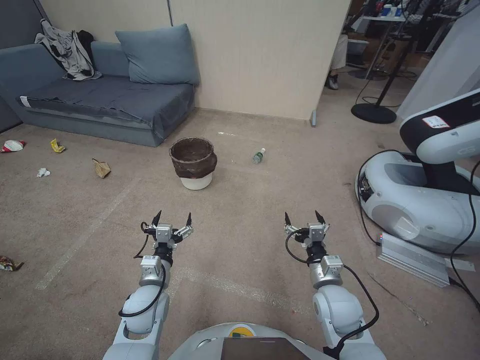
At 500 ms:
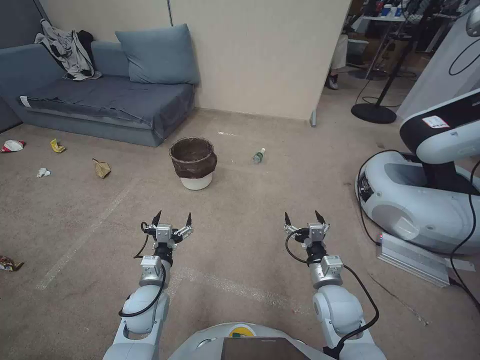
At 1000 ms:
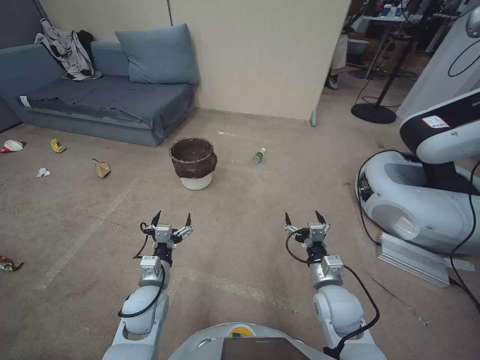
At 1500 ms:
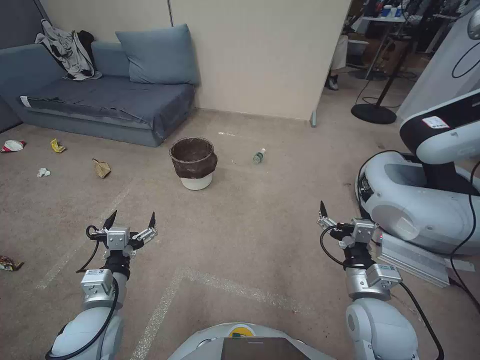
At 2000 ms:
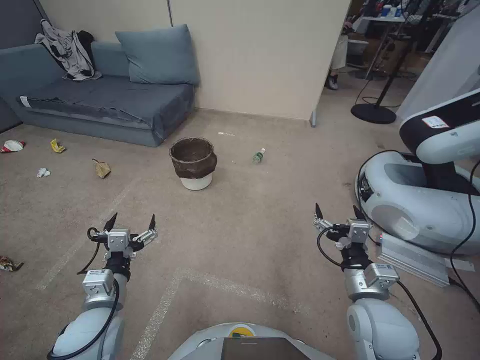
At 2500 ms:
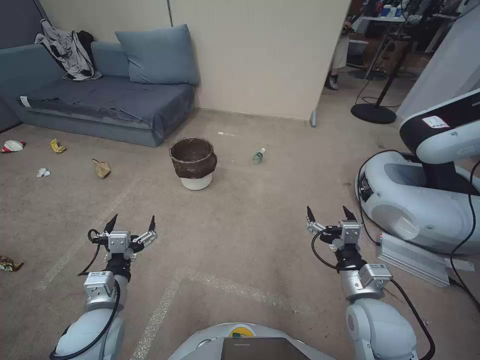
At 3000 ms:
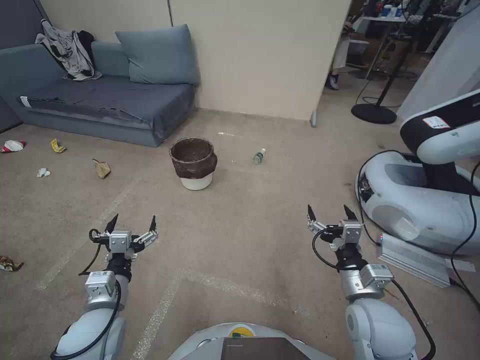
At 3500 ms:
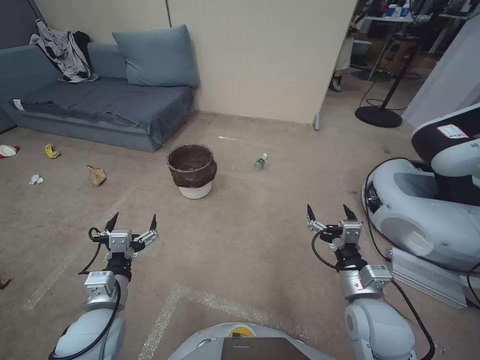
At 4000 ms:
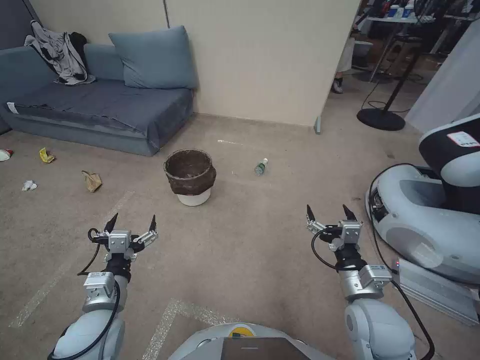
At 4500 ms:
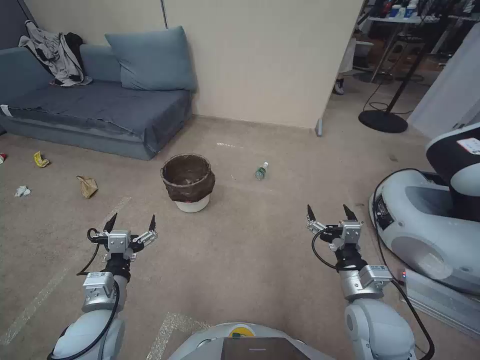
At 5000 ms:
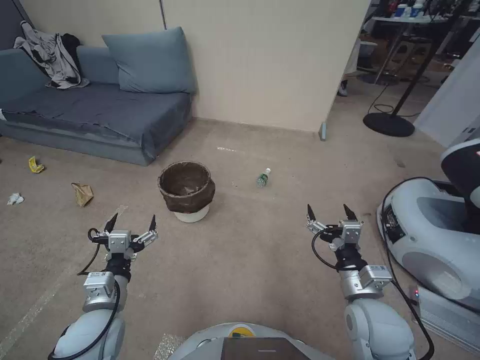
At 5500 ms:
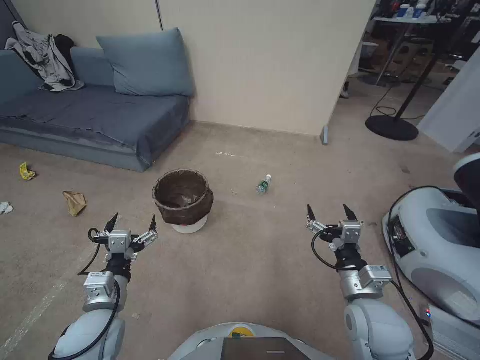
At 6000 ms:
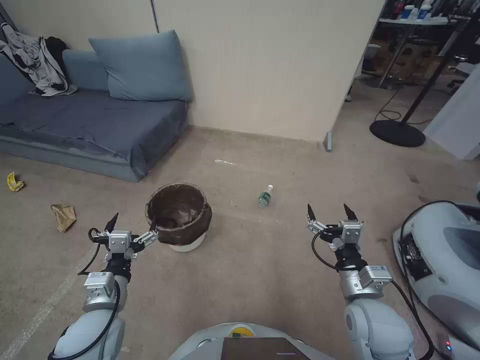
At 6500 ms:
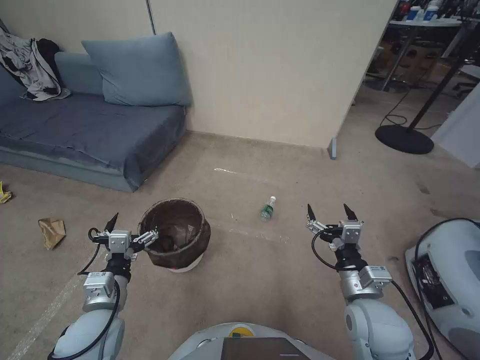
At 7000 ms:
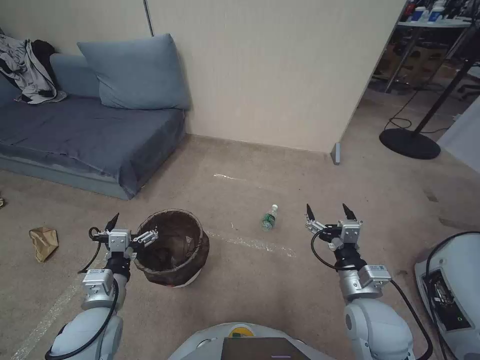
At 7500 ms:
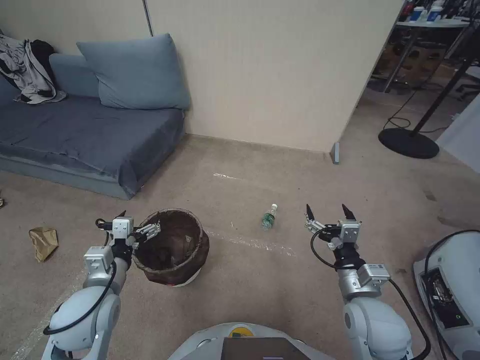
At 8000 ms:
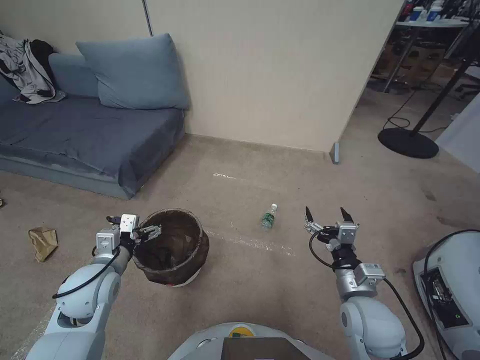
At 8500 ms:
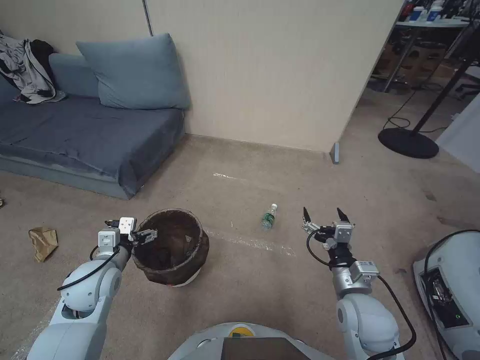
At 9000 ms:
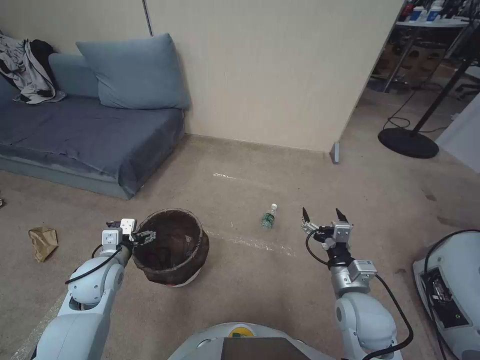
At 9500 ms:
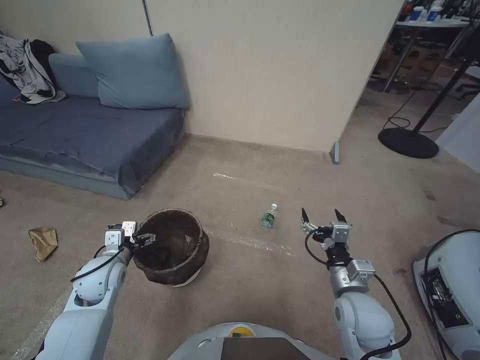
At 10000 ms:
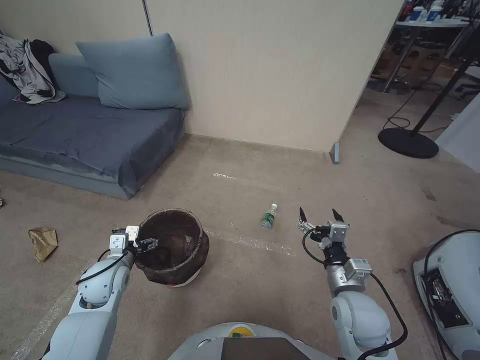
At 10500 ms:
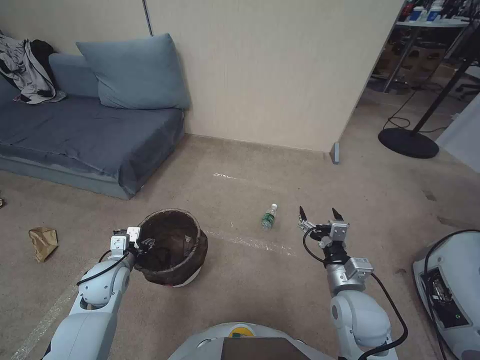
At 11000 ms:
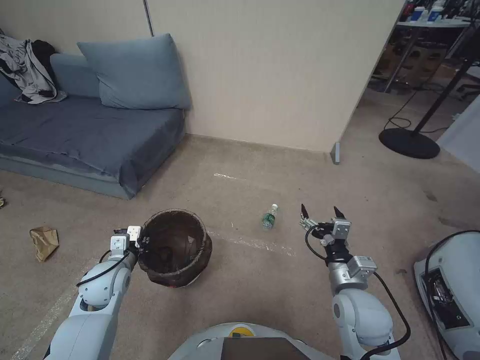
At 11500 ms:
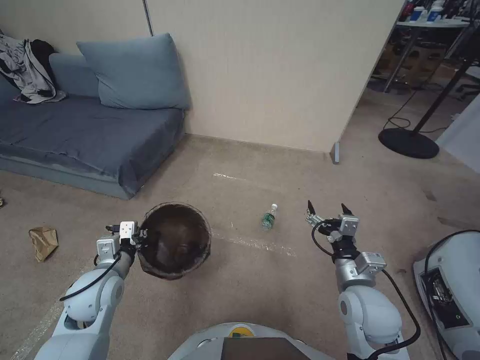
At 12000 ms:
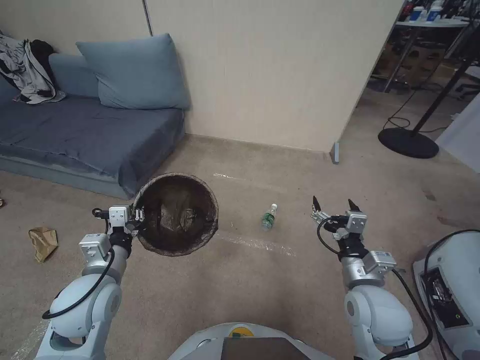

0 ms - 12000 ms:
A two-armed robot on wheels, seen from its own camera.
Task of the whole recording: Pick up the trash bin, then pick up the garbage from the floor and place it into the trash bin.
2000 ms - 4000 ms: The grippers move only a little.
6000 ms - 8000 ms: The left gripper goes roughly 5 cm forward.
8000 ms - 10000 ms: The left gripper goes about 5 cm downward.
10000 ms - 12000 ms: The left gripper heads upward and backward, covering about 10 cm, and closes its fingers.

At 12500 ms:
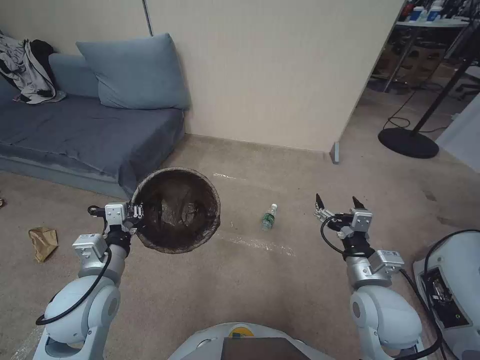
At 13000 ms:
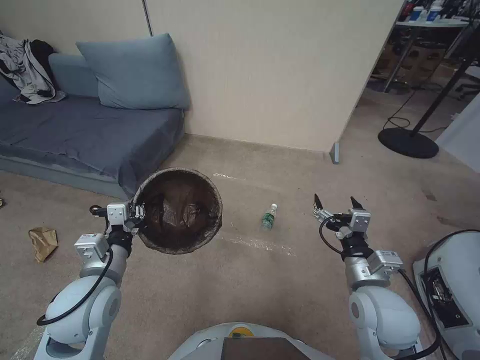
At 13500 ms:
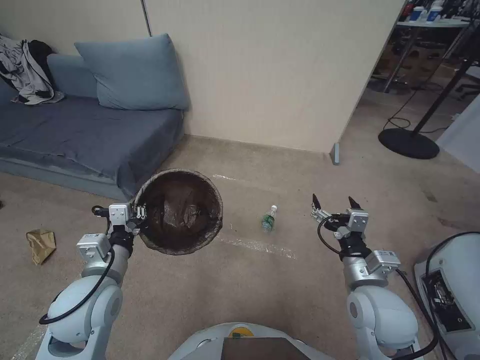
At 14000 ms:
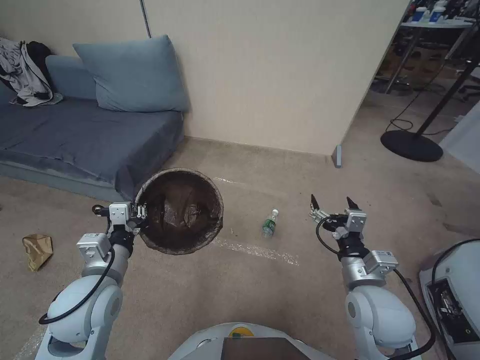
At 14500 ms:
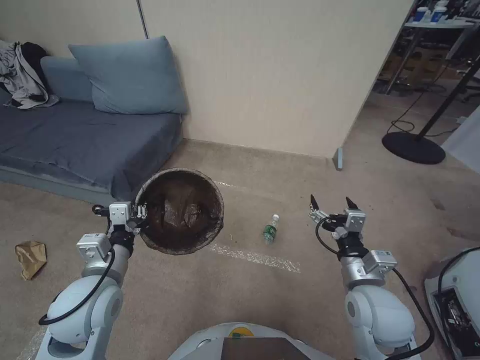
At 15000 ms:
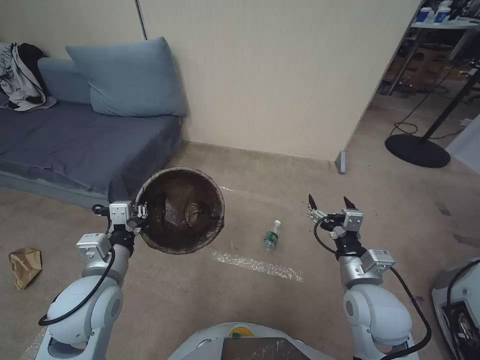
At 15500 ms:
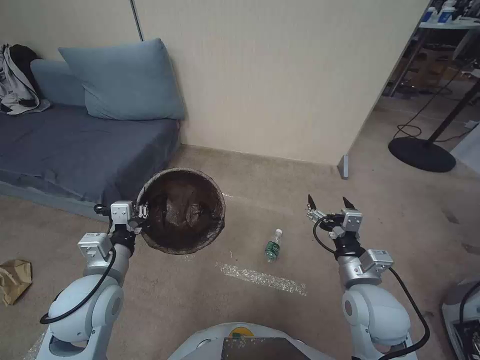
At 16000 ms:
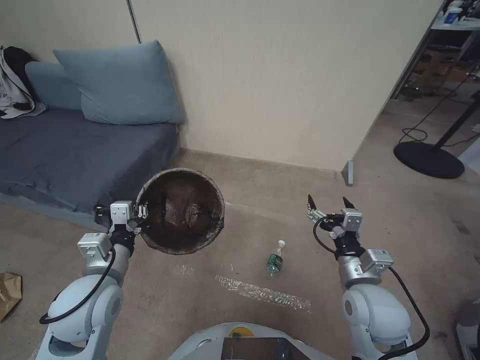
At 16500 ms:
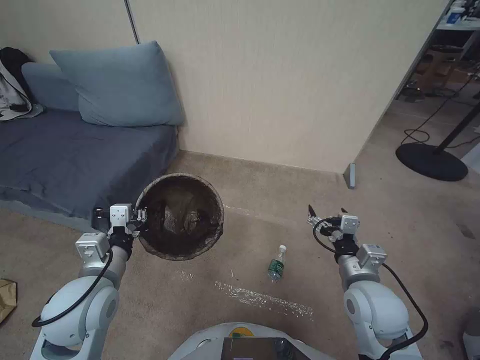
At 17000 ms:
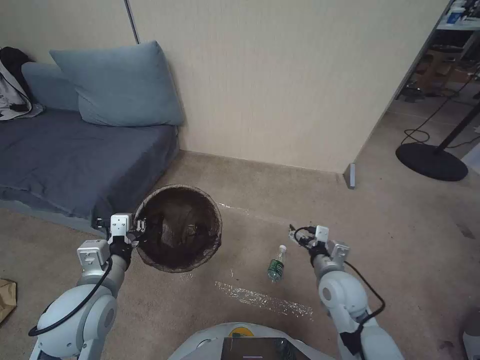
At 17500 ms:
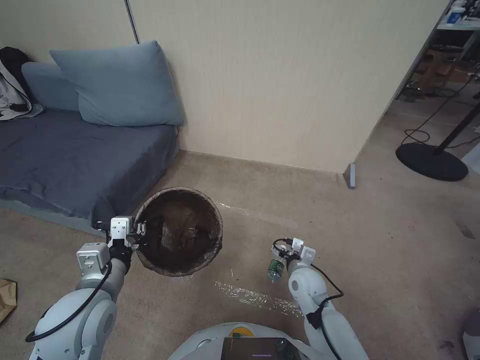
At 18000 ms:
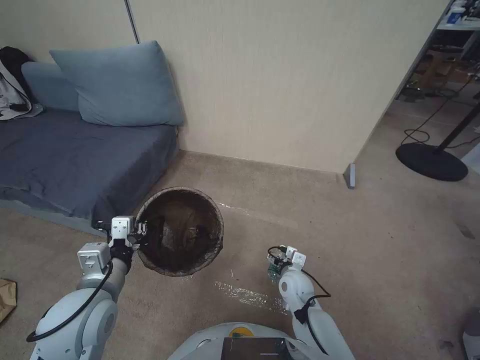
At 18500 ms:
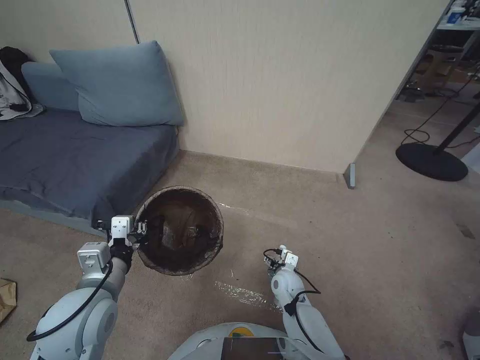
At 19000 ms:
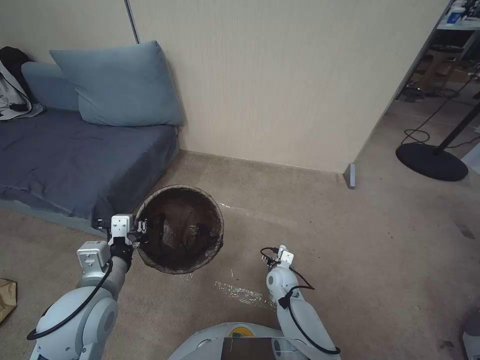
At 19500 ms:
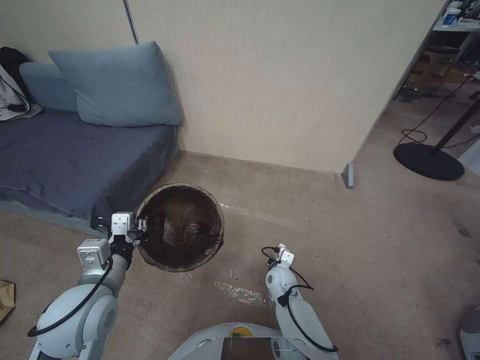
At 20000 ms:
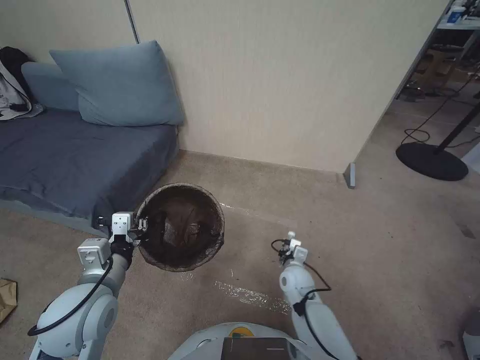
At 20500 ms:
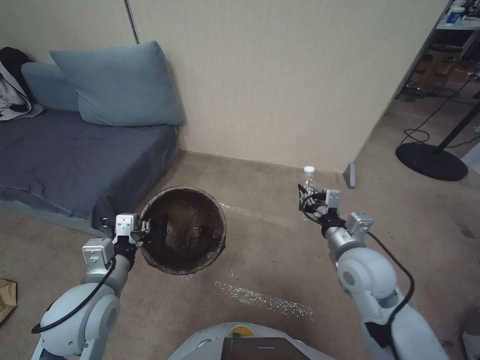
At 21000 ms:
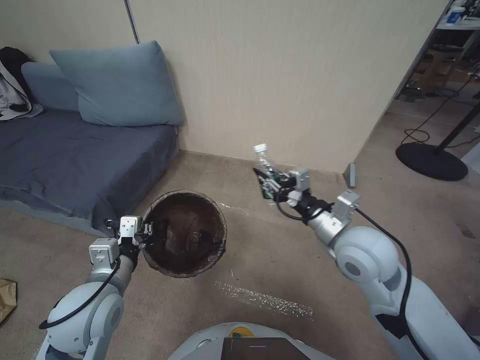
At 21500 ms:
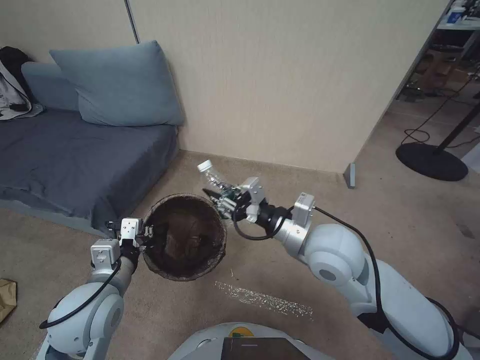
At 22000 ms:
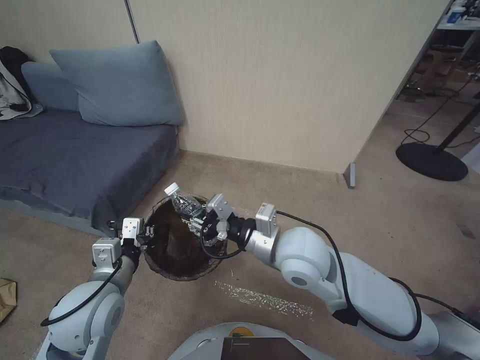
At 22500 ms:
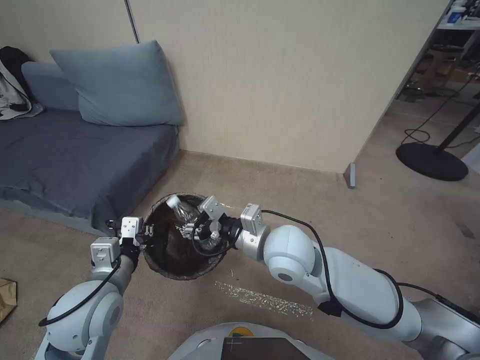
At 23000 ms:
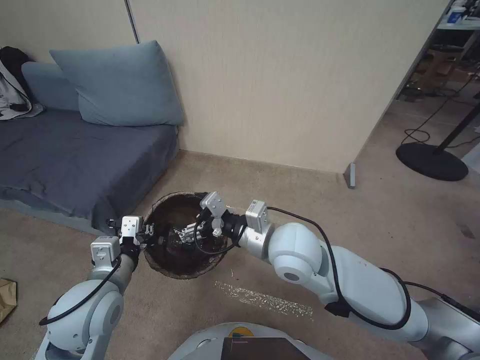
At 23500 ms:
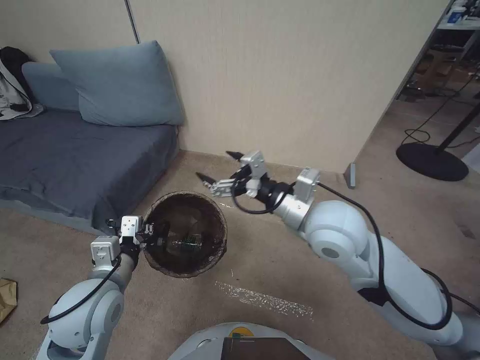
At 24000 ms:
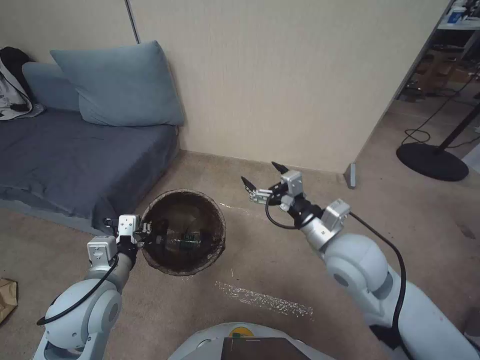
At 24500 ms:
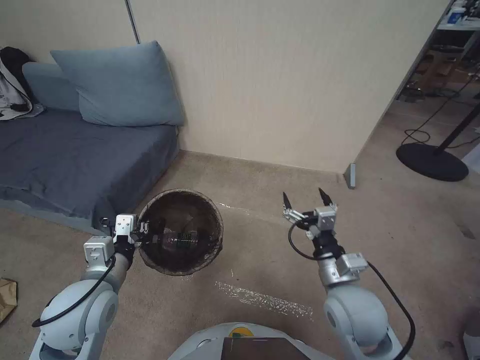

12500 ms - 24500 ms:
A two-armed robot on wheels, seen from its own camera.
Task of the whole recording: Pick up the trash bin, then pick up the garbage from the floor and place it into the trash bin.
12500 ms - 14500 ms: Both grippers stay put.
16500 ms - 18500 ms: The right gripper moves downward, to the left and forward, about 25 cm.
18500 ms - 20500 ms: The right gripper heads upward, covering some 25 cm, and closes up.
20500 ms - 22500 ms: The right gripper travels to the left and upward by roughly 20 cm.
22500 ms - 24500 ms: The right gripper moves to the right, downward and backward, about 15 cm, and opens its fingers.

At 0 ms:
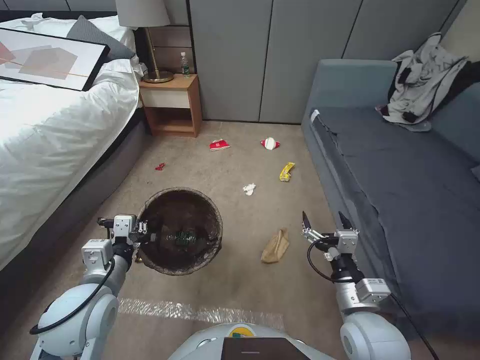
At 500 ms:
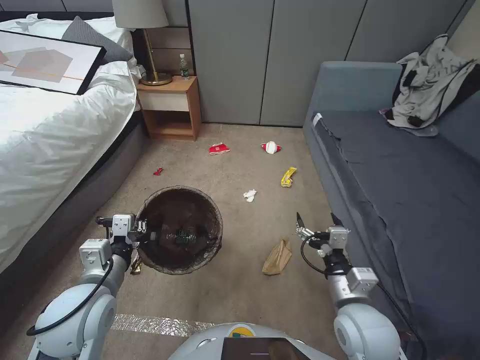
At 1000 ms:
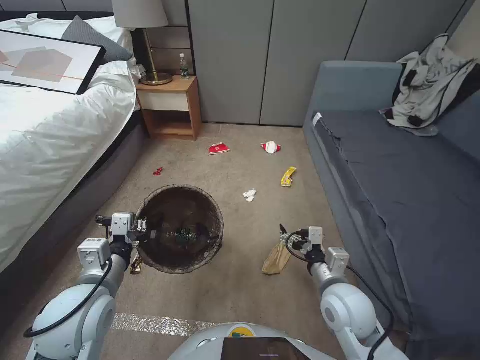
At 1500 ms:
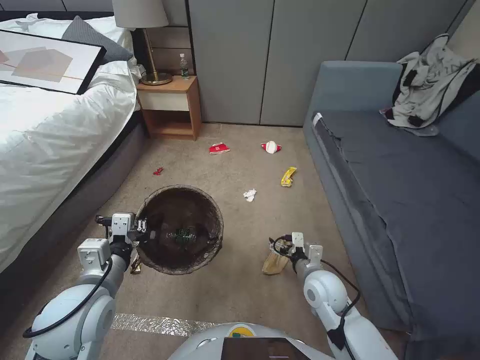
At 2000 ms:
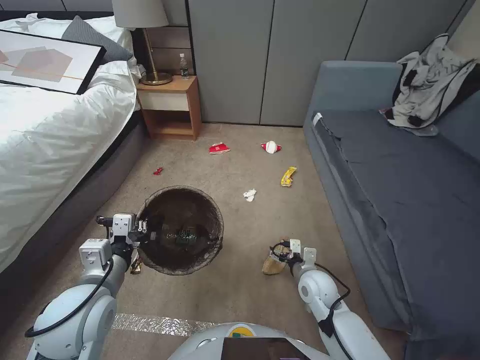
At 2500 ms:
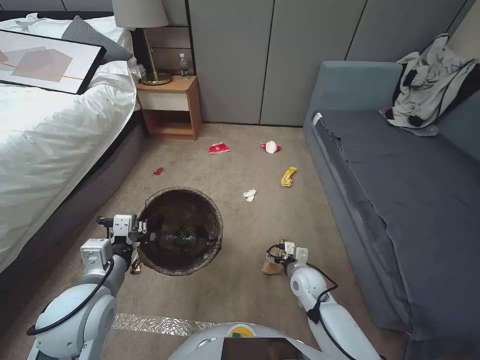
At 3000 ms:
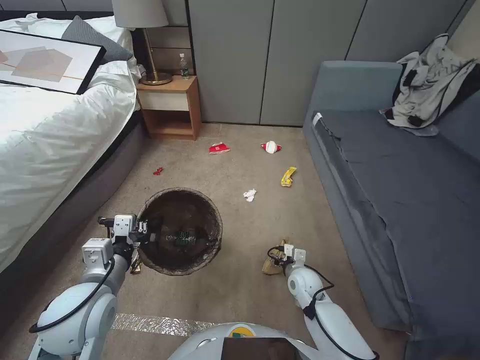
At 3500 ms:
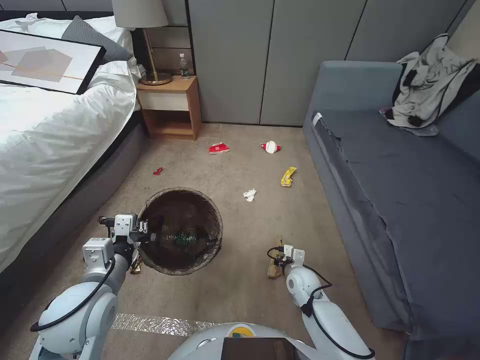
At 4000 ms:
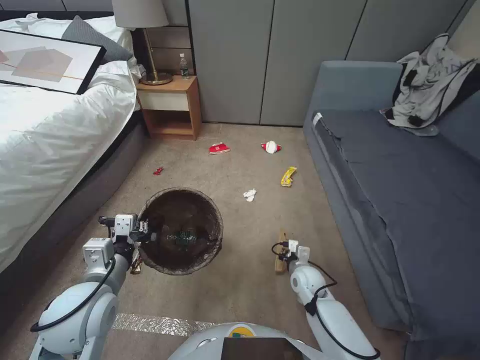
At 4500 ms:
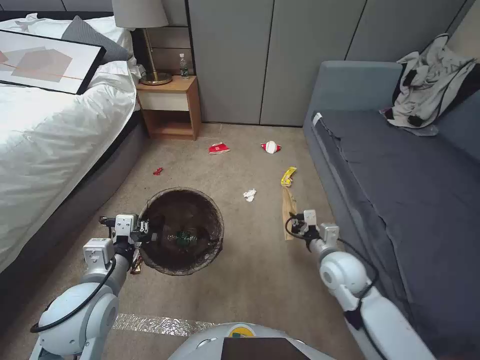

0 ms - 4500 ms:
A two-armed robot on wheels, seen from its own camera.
Task of the whole recording: Pick up the trash bin, then pick up the garbage from the floor and place it into the trash bin.
0 ms - 2000 ms: The right gripper goes approximately 15 cm downward and forward.
2000 ms - 4500 ms: The right gripper moves upward, some 5 cm, and closes up.
